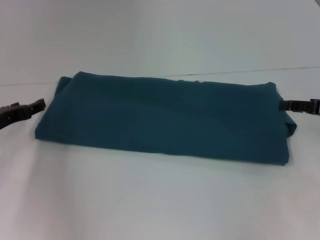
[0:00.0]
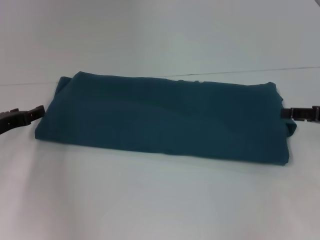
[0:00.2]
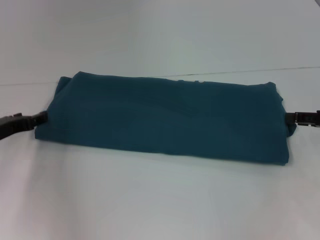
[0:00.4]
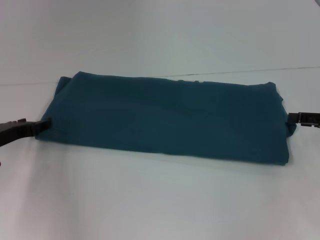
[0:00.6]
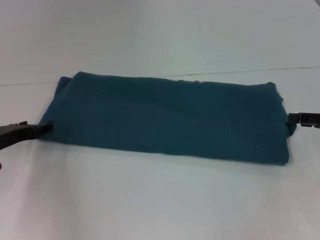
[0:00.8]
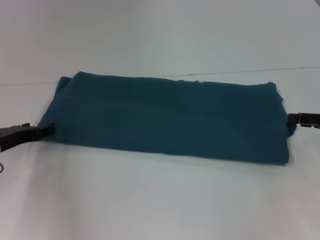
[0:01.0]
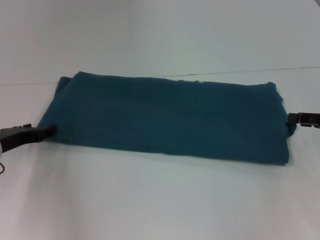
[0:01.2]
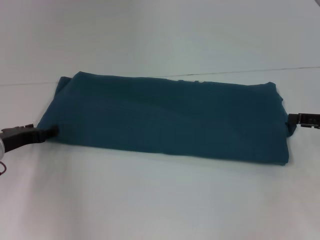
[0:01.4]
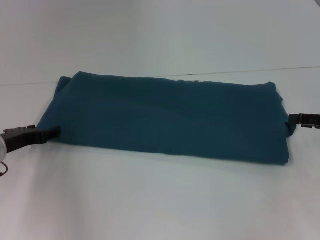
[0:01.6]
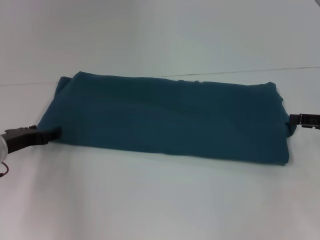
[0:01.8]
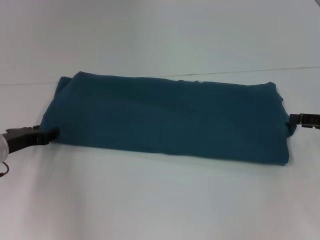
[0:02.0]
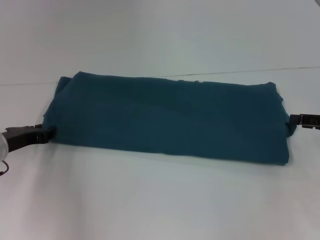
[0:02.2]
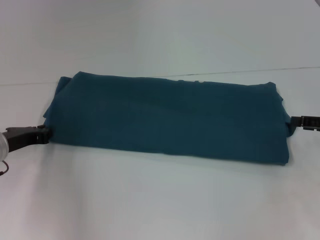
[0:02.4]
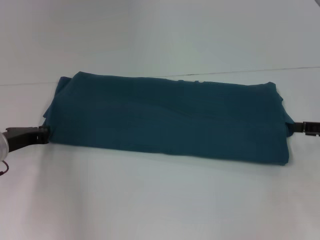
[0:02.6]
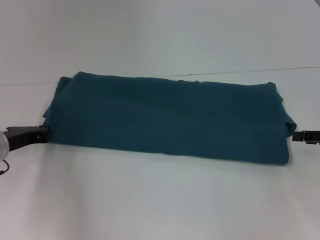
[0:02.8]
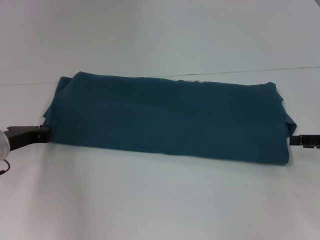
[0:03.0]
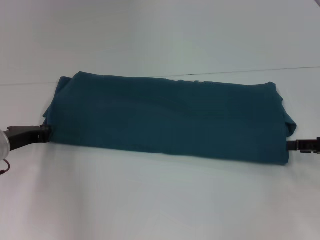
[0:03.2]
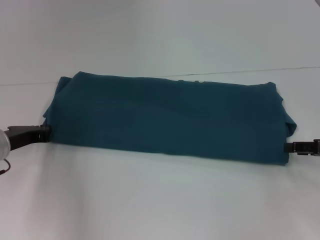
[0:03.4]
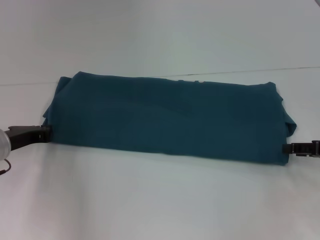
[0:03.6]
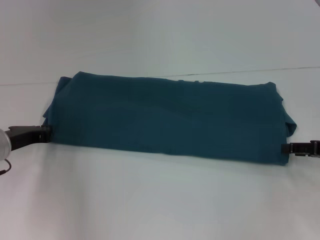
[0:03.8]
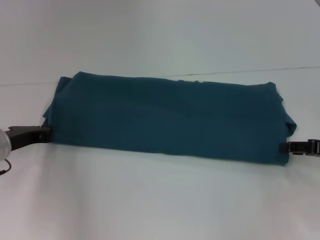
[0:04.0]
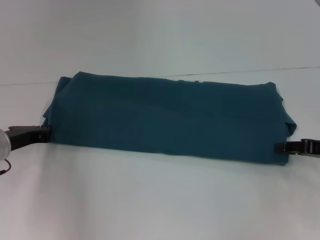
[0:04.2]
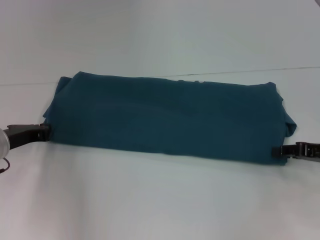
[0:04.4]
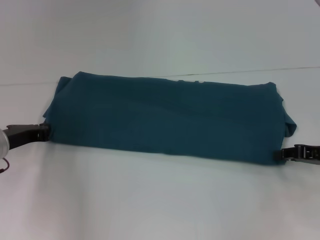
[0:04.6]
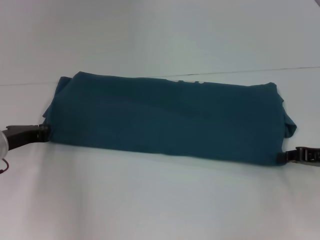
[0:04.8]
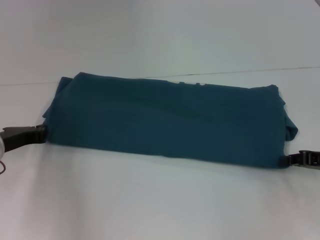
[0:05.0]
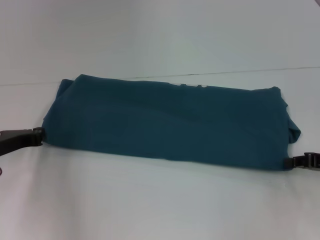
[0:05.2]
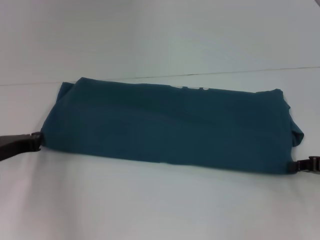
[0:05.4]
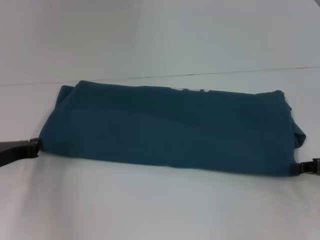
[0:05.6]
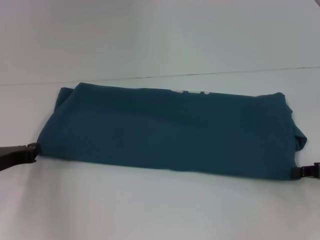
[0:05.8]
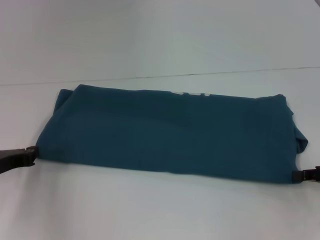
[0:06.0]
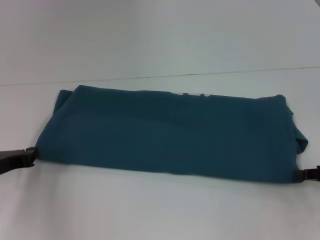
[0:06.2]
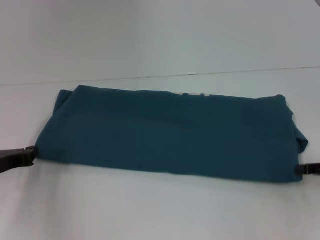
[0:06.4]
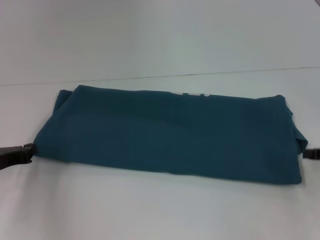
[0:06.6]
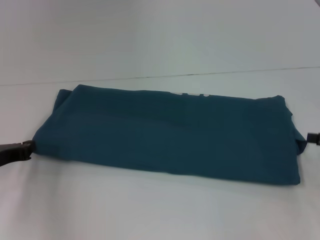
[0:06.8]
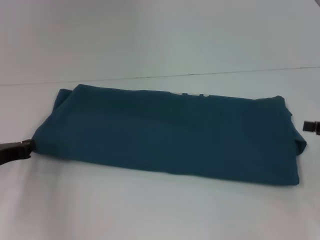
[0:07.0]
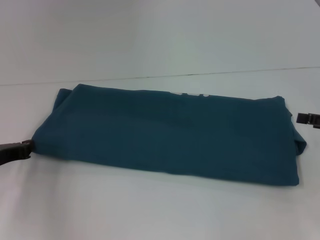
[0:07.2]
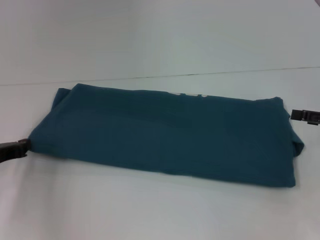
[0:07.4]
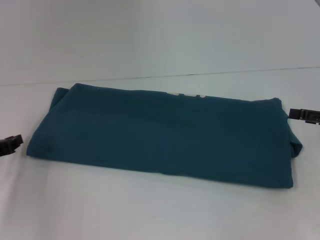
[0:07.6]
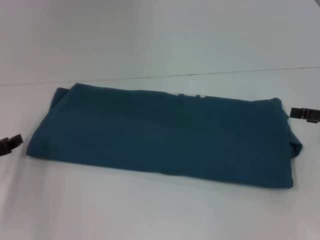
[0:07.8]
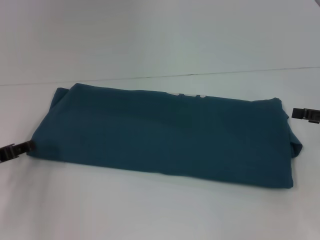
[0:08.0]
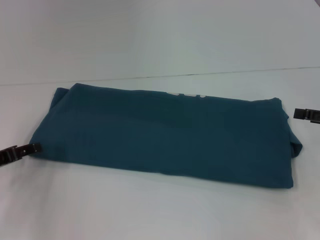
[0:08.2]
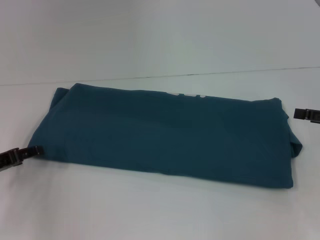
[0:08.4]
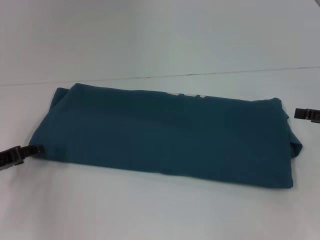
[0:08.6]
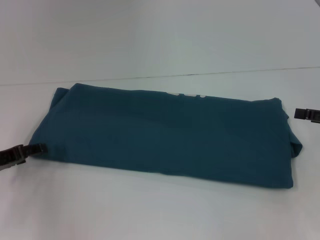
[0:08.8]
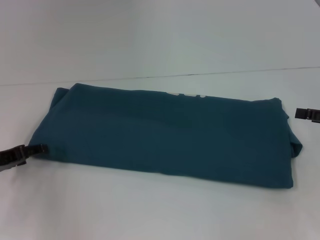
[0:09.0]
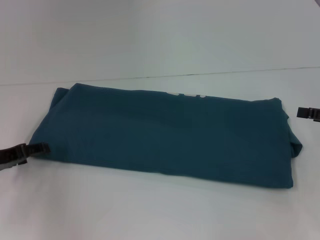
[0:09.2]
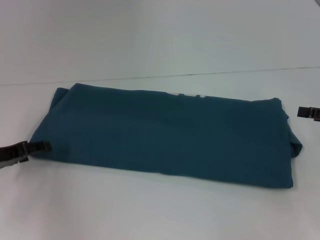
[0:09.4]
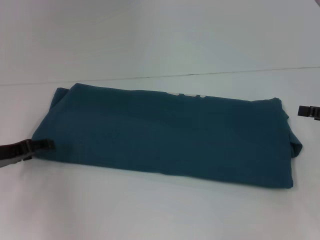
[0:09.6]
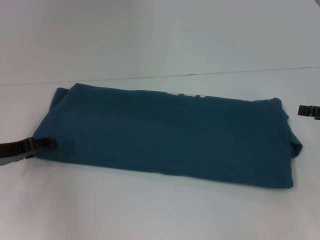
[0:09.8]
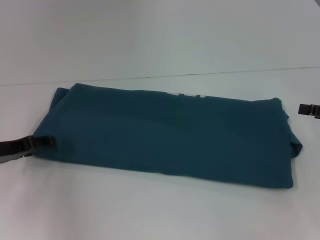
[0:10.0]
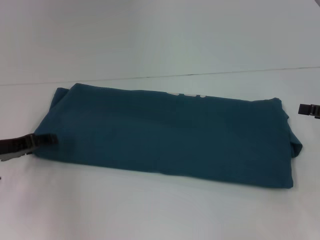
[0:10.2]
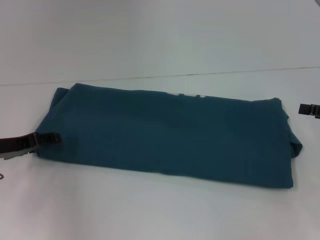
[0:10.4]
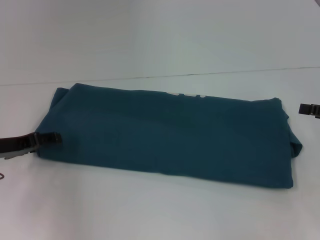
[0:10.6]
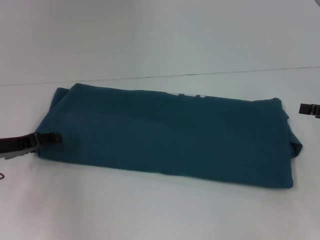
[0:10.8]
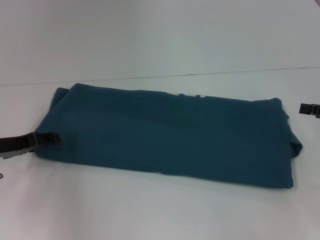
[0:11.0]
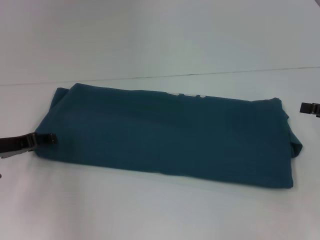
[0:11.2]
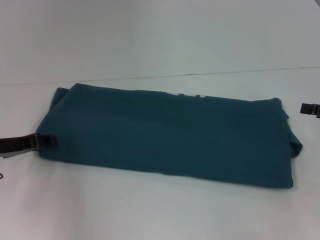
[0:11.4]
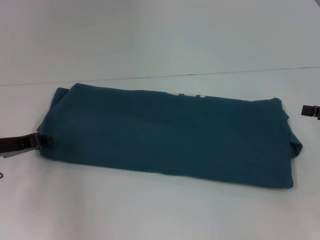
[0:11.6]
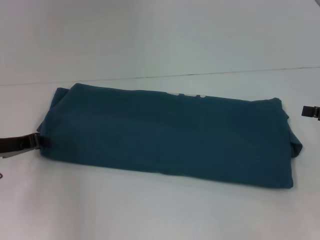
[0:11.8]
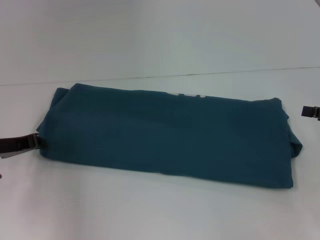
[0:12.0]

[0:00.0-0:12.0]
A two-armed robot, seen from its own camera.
0:00.0 to 0:01.6: The grippers make only small movements.
0:01.6 to 0:03.0: The left gripper closes.
0:03.0 to 0:04.4: The grippers move only a little.
0:04.4 to 0:06.0: The left gripper goes approximately 5 cm backward, while the right gripper closes its fingers.
0:06.0 to 0:07.6: The right gripper shifts by about 5 cm, and opens.
0:07.6 to 0:09.0: The left gripper opens its fingers.
0:09.0 to 0:10.4: The grippers stay close to where they were, moving slightly.

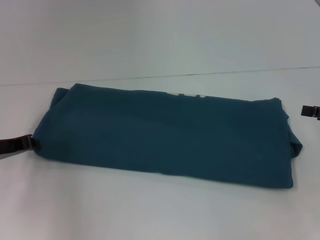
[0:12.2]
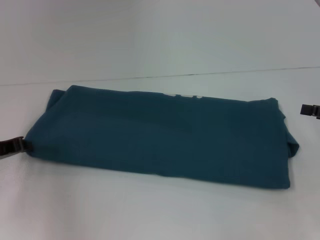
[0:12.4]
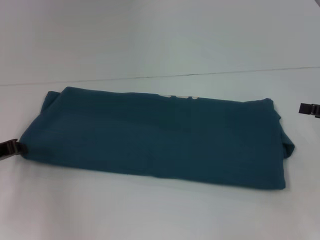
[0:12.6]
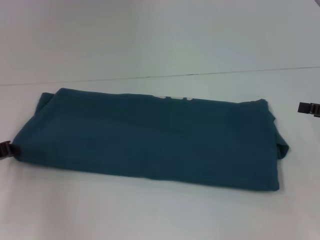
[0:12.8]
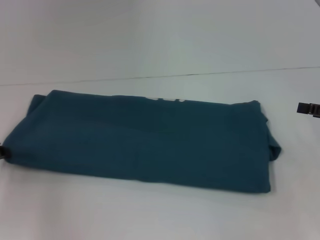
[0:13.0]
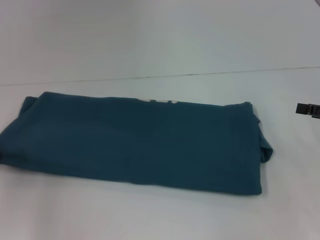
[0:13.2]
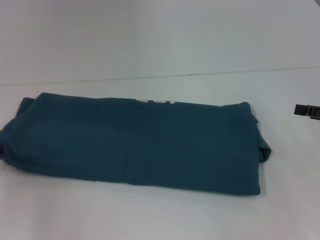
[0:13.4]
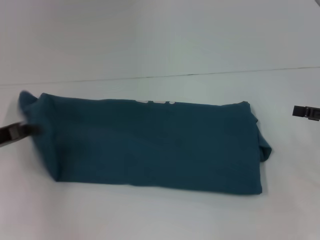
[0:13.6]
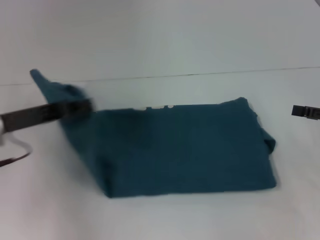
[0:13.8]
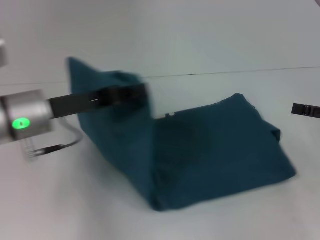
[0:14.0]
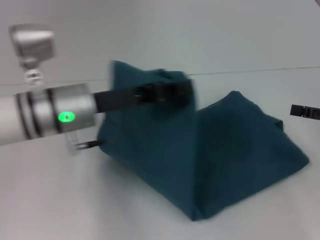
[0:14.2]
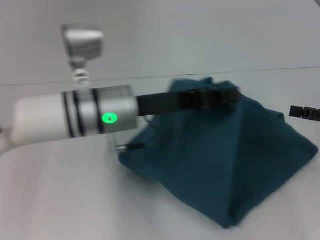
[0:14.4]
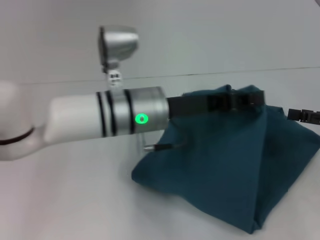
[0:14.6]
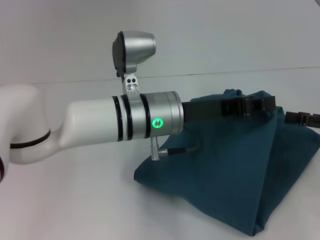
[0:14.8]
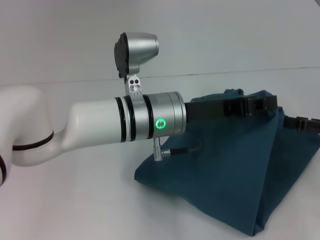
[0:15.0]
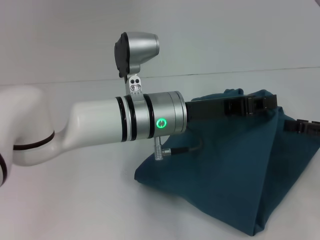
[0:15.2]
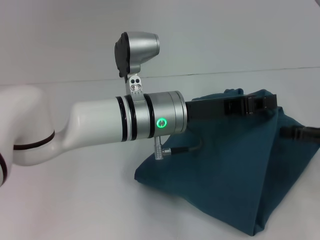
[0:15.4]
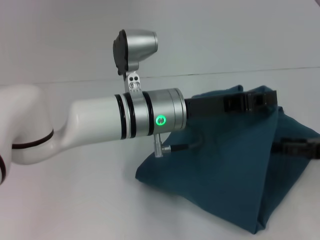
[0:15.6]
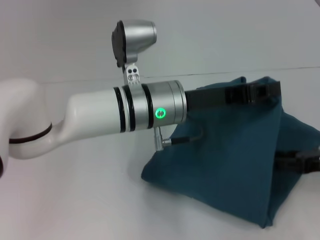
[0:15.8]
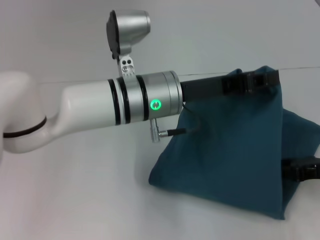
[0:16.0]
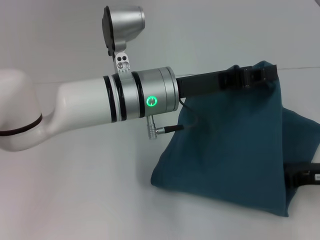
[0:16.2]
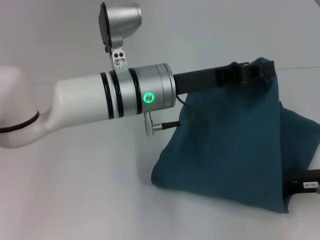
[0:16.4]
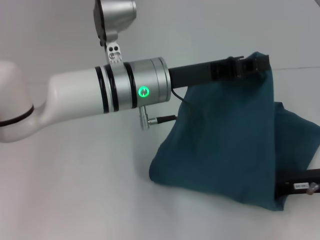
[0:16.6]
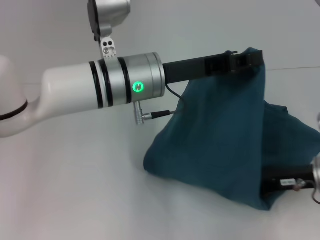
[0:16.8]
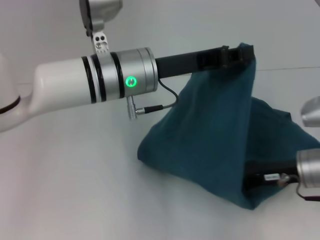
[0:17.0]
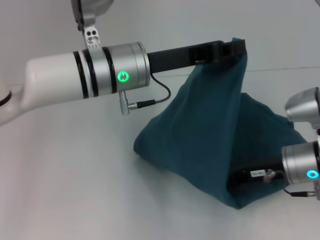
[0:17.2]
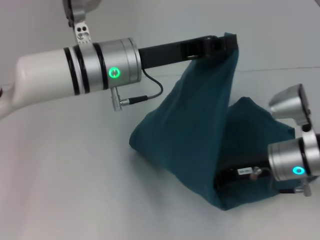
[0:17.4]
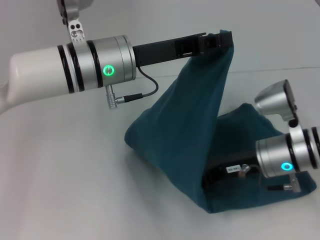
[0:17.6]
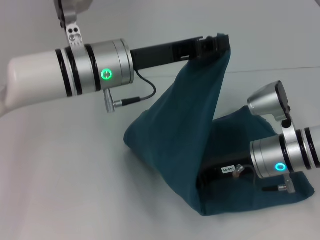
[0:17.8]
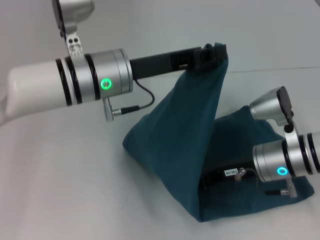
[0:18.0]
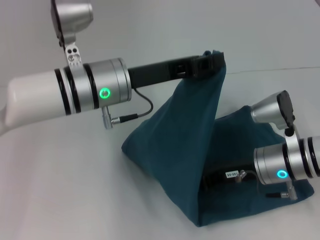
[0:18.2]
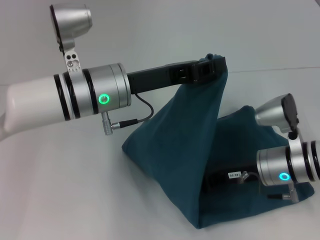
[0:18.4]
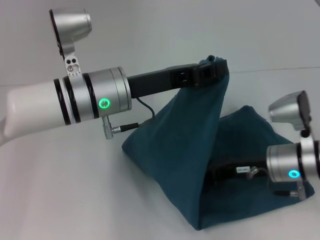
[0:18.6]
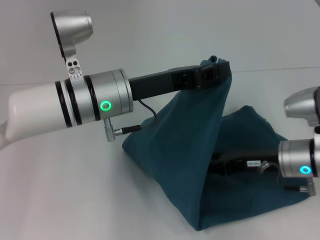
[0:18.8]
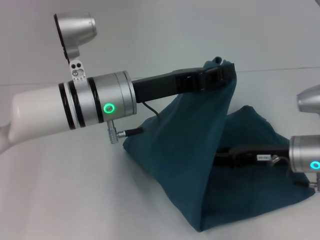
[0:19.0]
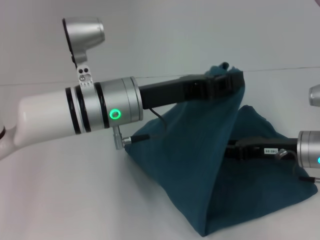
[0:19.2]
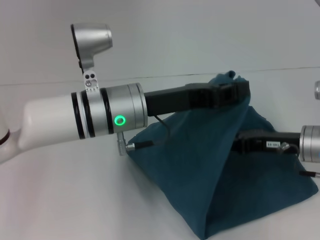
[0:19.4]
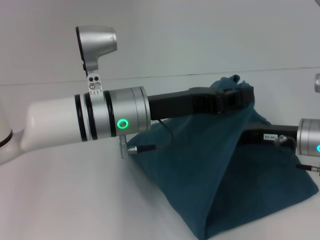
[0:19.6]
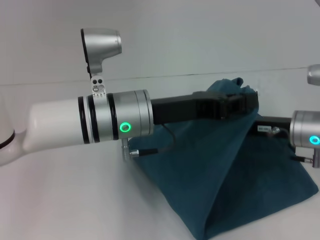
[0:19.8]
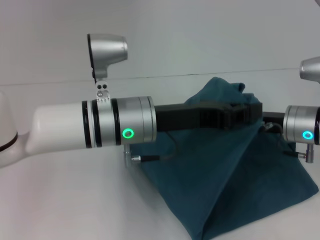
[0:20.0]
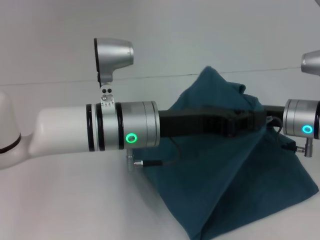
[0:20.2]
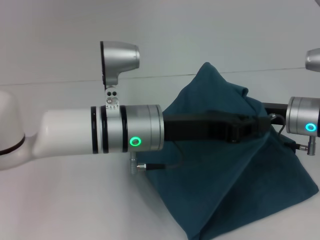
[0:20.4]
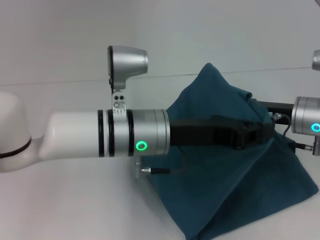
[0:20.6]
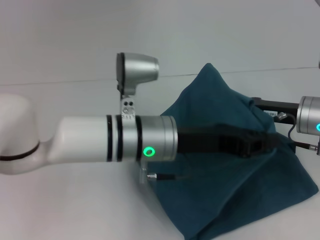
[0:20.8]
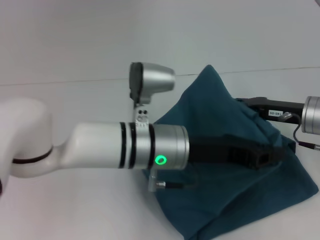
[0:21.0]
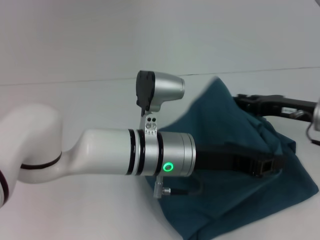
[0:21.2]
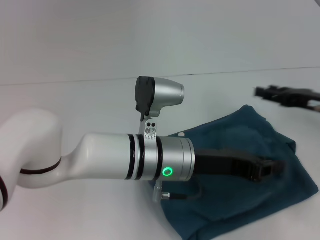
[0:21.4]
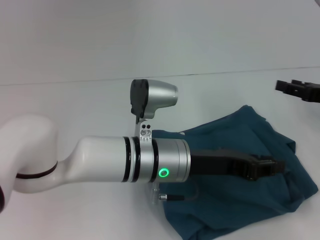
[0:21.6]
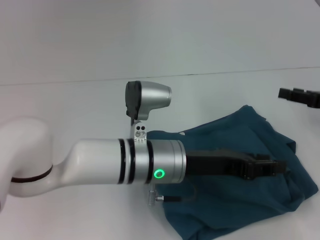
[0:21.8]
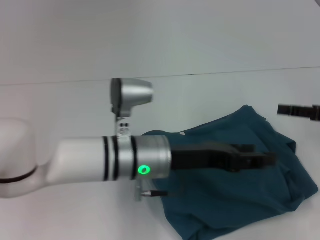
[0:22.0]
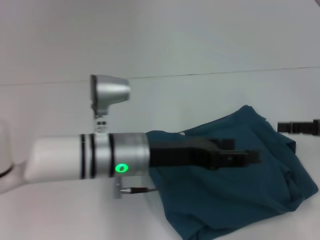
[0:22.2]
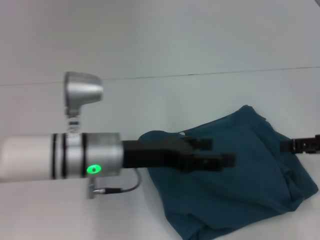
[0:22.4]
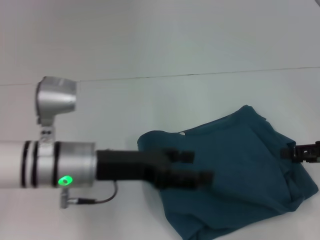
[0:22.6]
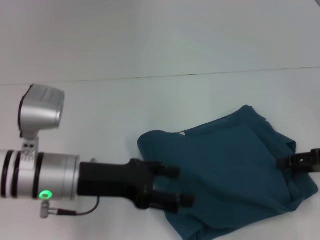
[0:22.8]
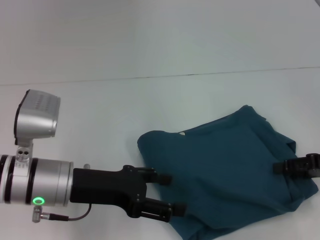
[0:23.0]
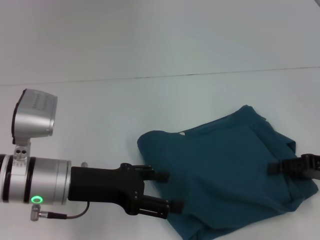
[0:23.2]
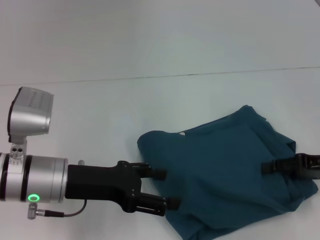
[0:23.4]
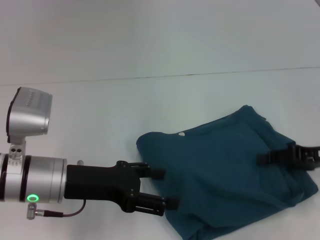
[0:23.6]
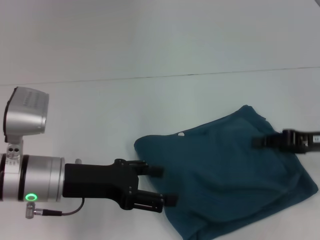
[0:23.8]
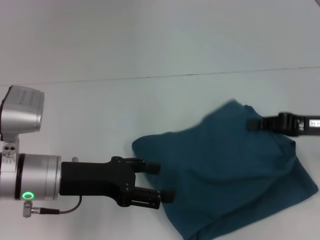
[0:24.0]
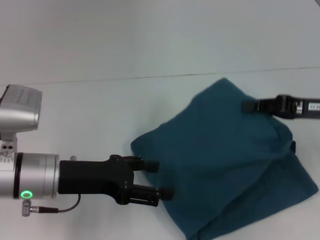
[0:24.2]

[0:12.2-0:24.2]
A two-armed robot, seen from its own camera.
Step, 0:12.2 to 0:18.6: Press the middle of the clothes with your right hand.
Step, 0:18.8 to 0:21.8: Fold the clothes to the left.
0:12.2 to 0:13.8: The left gripper moves upward, roughly 5 cm.
0:13.8 to 0:15.2: The left gripper shifts about 25 cm to the right.
0:15.2 to 0:16.6: The right gripper travels to the left and downward by about 10 cm, and closes.
0:16.6 to 0:18.2: The right gripper heads to the left, covering about 10 cm.
0:18.2 to 0:19.8: The right gripper moves to the right, roughly 5 cm.
0:19.8 to 0:21.2: The left gripper changes place by approximately 5 cm.
0:21.2 to 0:22.6: The right gripper travels to the right and backward by approximately 10 cm. Meanwhile the left gripper moves to the left, about 10 cm, and opens.
0:22.6 to 0:24.2: The right gripper shifts roughly 5 cm to the left, and closes up.
